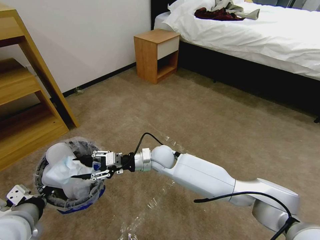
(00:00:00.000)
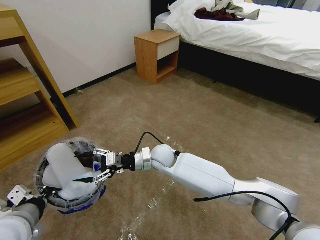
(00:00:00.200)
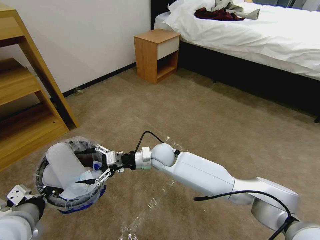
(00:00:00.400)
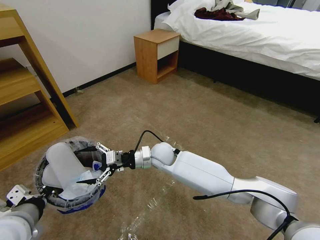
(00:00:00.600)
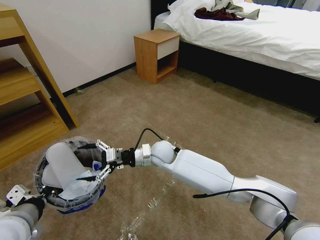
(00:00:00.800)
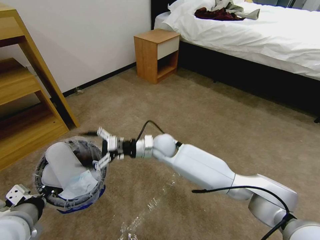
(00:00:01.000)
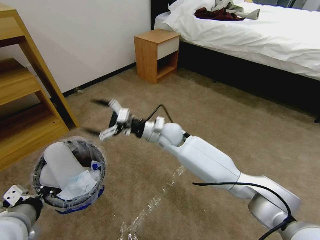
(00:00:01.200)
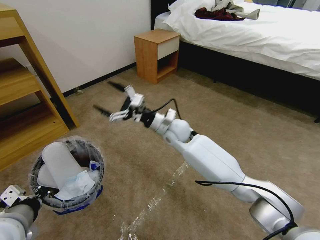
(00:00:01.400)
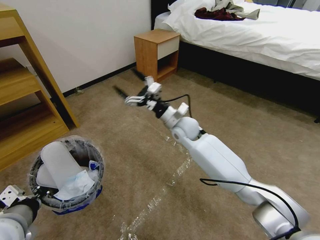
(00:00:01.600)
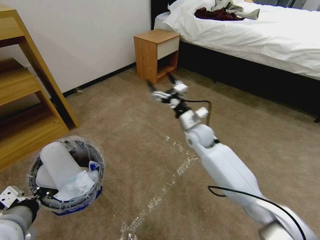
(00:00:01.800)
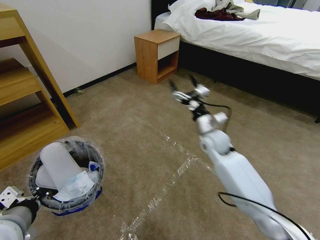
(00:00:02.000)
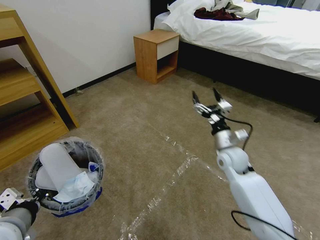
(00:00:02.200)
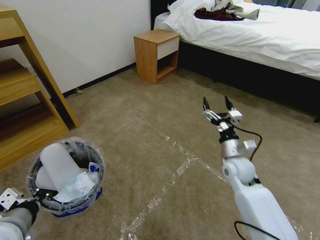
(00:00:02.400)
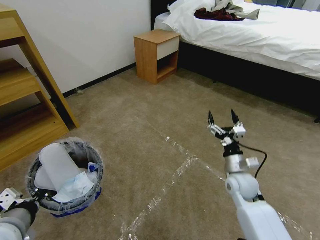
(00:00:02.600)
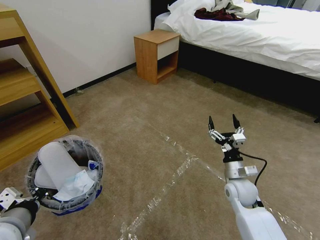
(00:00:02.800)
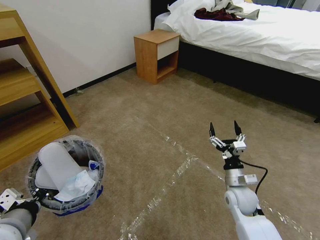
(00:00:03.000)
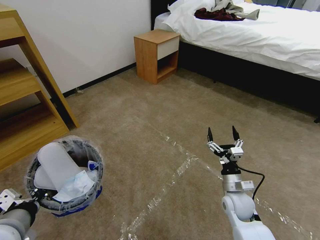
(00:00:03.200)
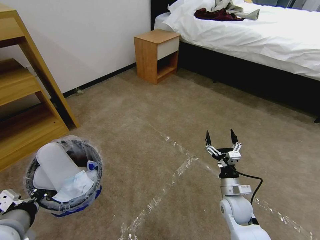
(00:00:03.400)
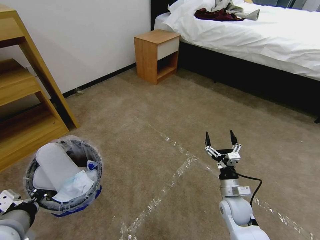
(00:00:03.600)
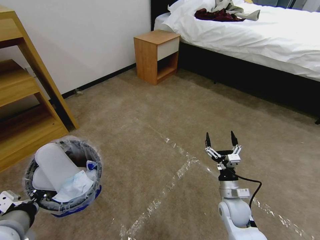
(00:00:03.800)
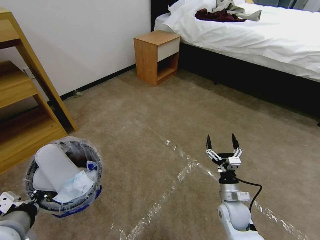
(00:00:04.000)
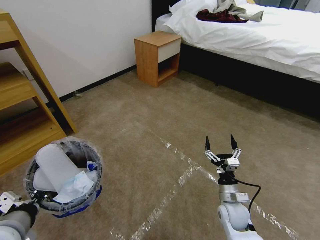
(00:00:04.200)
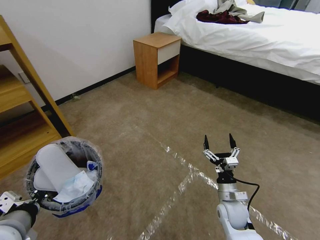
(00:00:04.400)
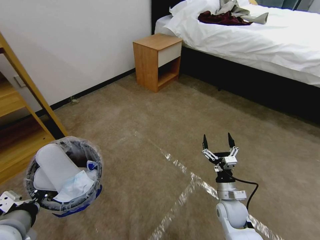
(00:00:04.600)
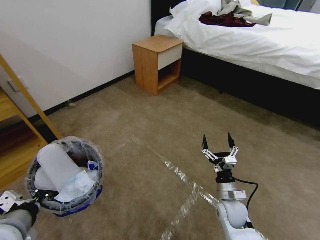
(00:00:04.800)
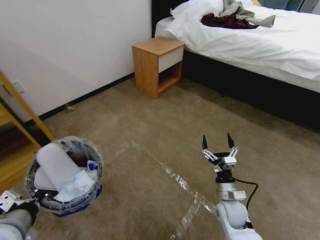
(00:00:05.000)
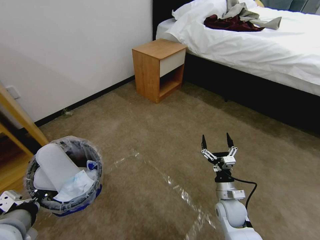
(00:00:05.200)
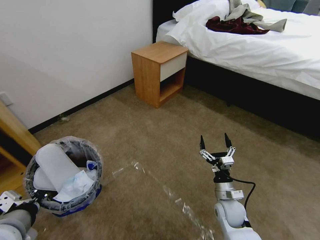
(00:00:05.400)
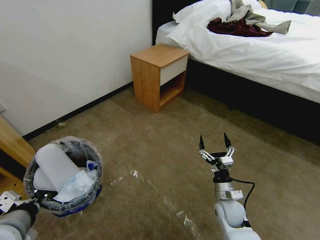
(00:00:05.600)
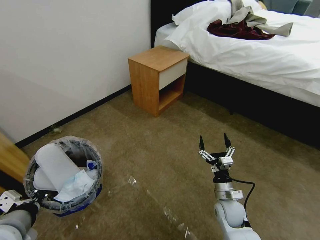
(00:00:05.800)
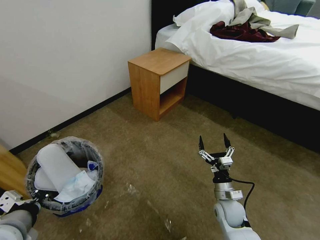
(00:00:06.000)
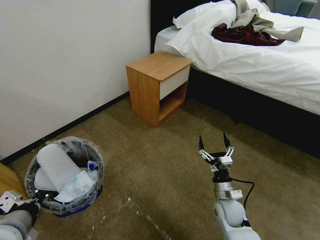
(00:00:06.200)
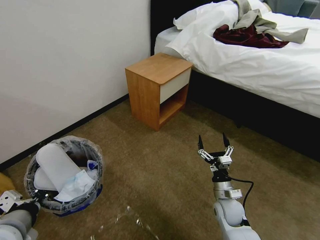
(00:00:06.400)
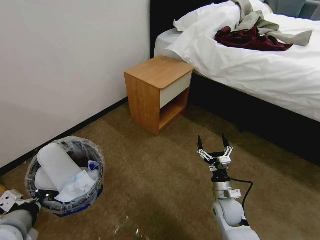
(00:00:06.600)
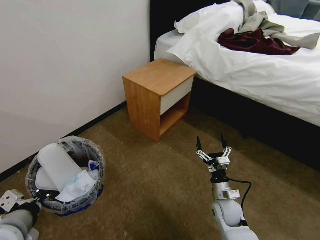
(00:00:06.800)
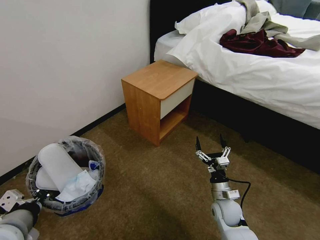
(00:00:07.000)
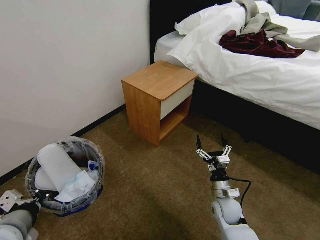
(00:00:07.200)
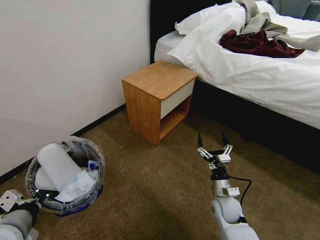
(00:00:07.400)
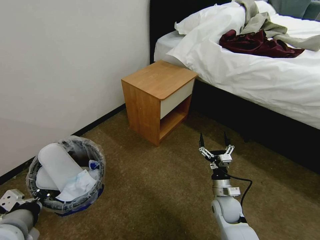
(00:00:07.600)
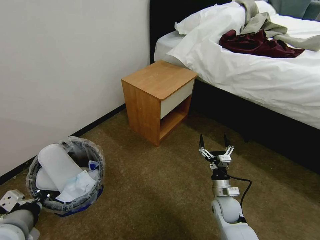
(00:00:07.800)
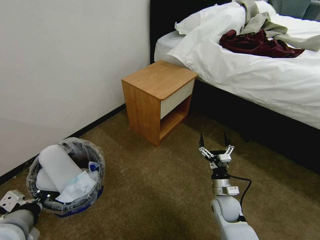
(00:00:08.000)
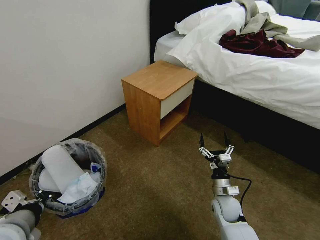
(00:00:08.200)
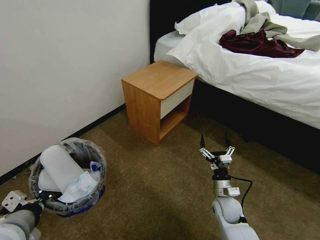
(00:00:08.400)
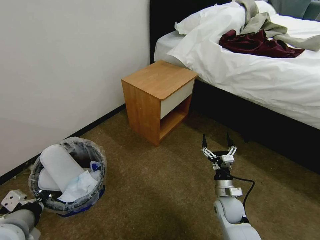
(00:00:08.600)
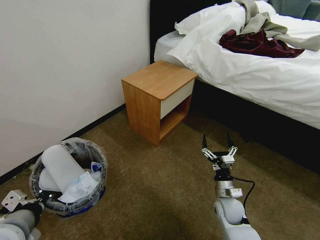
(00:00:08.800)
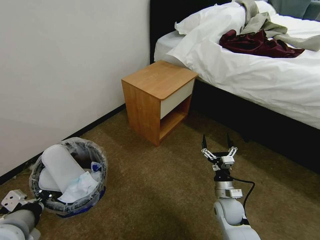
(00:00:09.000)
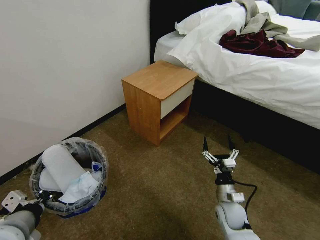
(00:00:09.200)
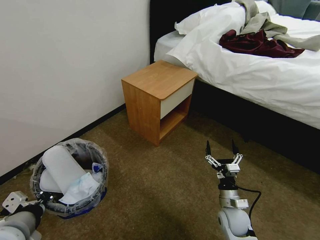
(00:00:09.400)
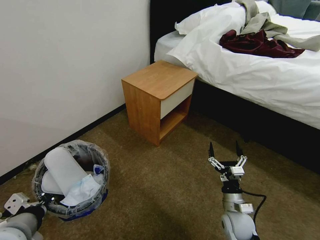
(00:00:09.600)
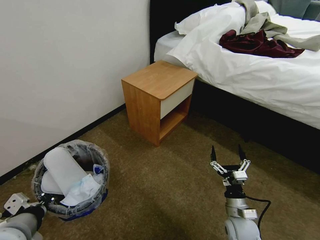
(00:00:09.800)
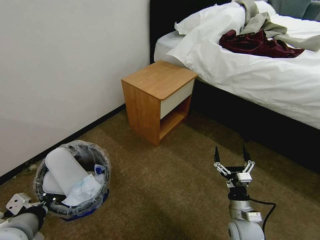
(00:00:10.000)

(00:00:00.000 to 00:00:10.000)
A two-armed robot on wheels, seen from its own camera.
Task of the whole recording: Pick up the trash bin and place the garbage on the floor into it.
00:00:00.000 - 00:00:01.400: The right gripper travels upward, forward and to the right by some 10 cm, and opens up.
00:00:01.400 - 00:00:02.800: The right gripper heads to the right, backward and downward, covering approximately 30 cm.
00:00:02.800 - 00:00:04.200: The right gripper goes some 10 cm downward and backward.
00:00:07.200 - 00:00:08.600: Both grippers stay put.
00:00:08.600 - 00:00:10.000: The right gripper goes about 10 cm backward.
